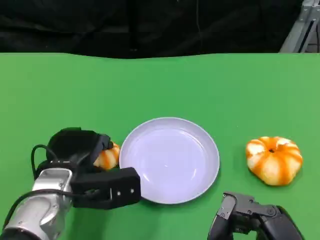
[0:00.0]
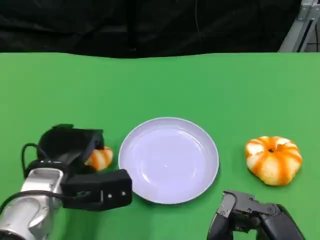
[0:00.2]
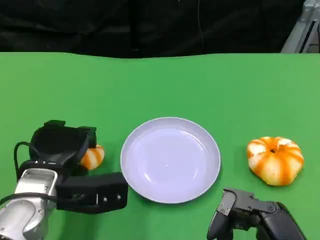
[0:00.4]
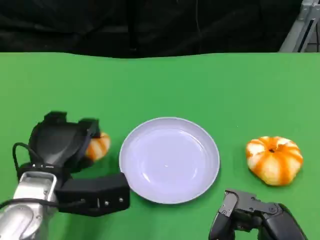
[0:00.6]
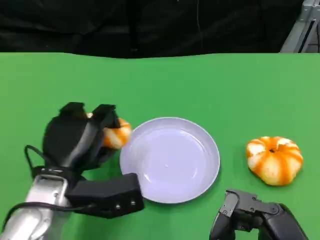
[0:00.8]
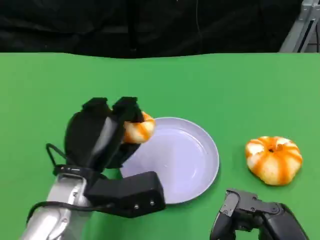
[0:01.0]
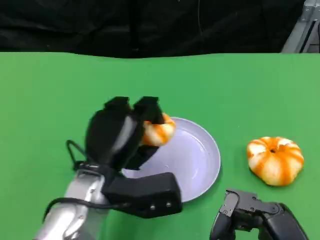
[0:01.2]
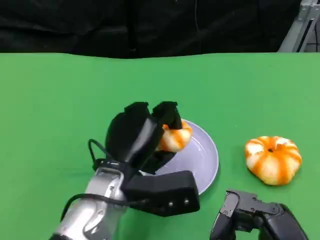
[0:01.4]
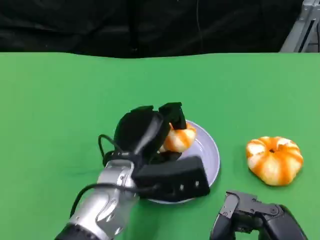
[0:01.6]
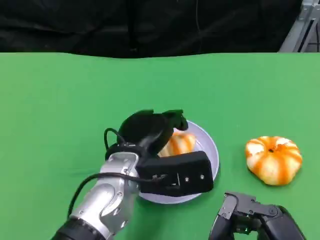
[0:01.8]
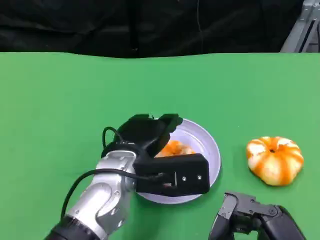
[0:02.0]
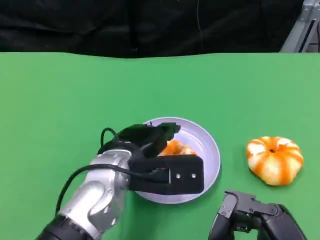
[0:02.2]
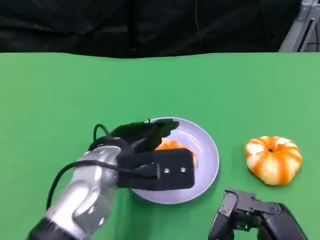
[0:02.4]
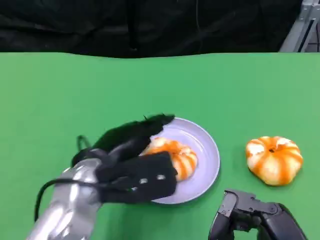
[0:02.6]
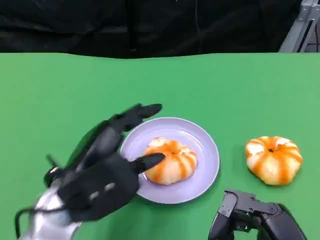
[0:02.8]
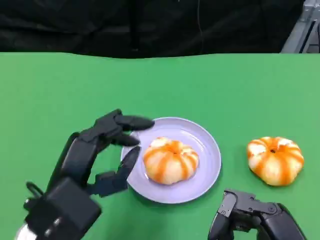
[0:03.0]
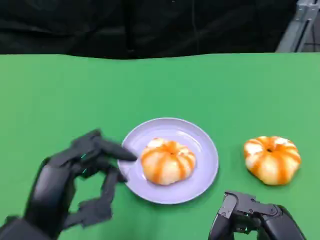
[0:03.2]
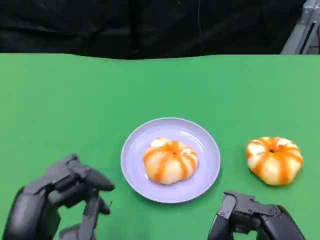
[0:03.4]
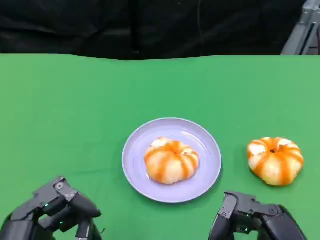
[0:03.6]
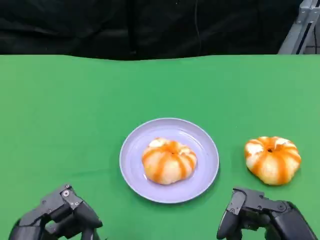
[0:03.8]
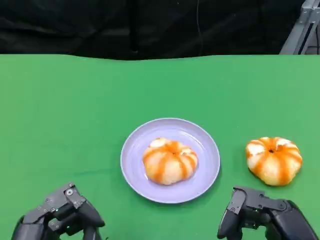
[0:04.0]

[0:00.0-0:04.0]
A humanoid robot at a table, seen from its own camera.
Task of the whole recording: Grasp the bread from the table and place it into the plate.
0:00.0 to 0:01.4: The left hand moves to the right, about 10 cm.
0:01.4 to 0:02.6: The left hand is displaced to the left by about 5 cm.
0:02.6 to 0:04.0: The left hand moves backward and to the left, about 15 cm.

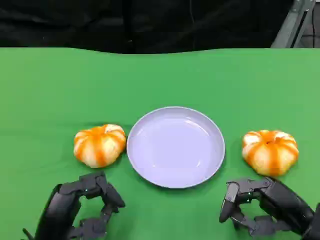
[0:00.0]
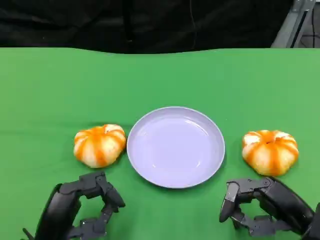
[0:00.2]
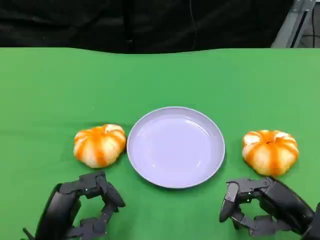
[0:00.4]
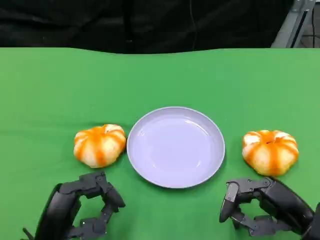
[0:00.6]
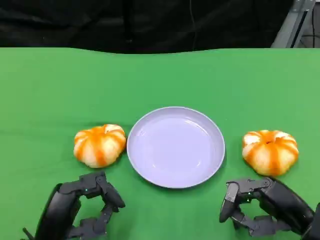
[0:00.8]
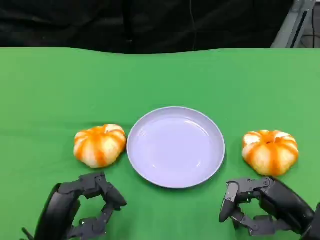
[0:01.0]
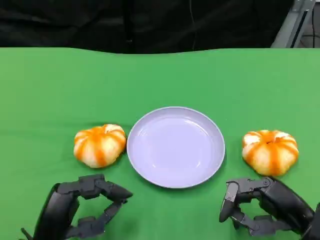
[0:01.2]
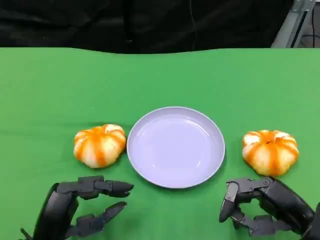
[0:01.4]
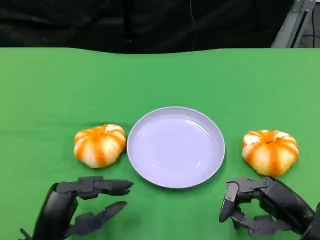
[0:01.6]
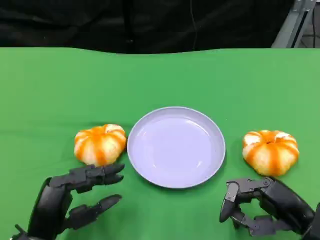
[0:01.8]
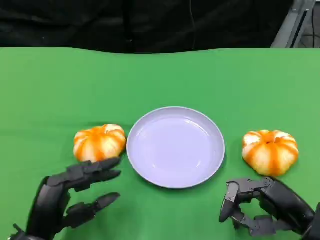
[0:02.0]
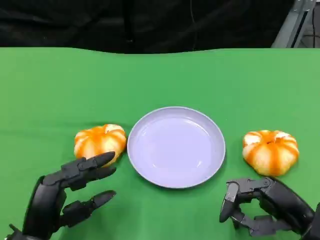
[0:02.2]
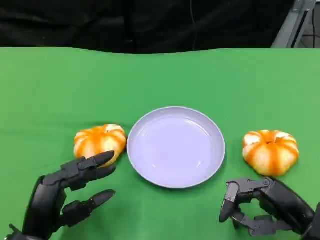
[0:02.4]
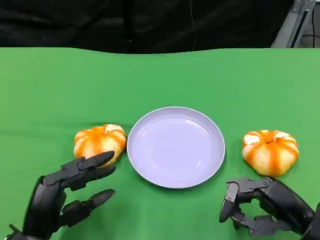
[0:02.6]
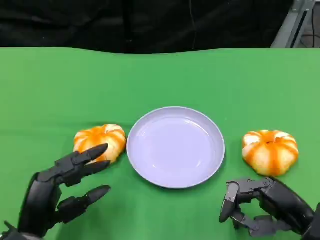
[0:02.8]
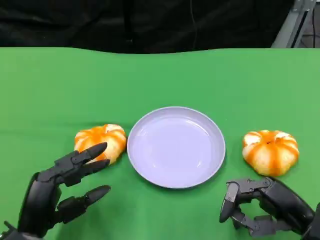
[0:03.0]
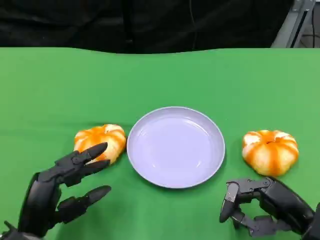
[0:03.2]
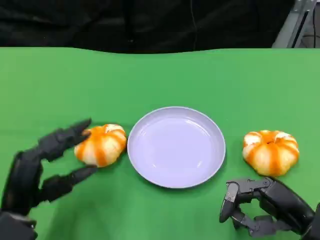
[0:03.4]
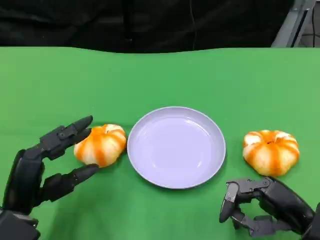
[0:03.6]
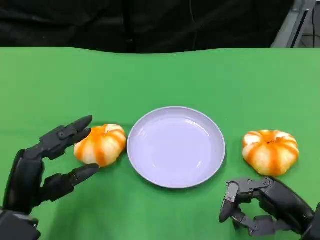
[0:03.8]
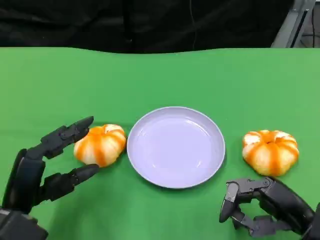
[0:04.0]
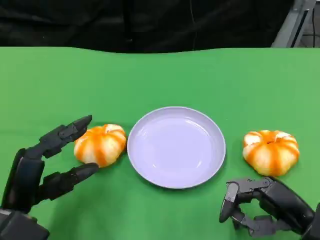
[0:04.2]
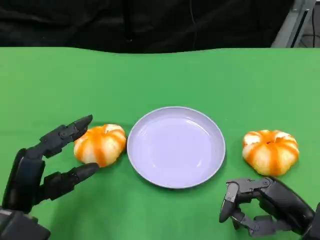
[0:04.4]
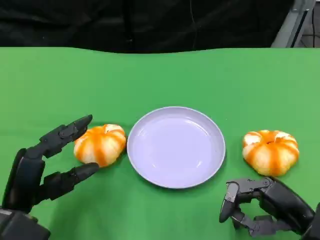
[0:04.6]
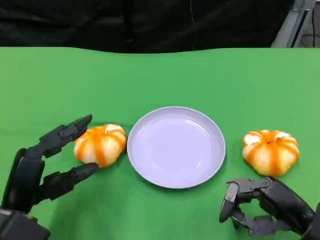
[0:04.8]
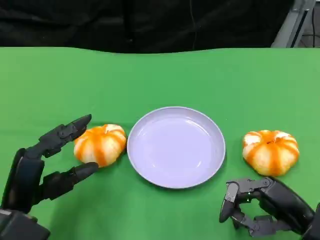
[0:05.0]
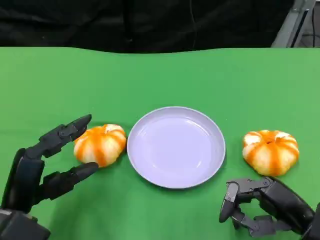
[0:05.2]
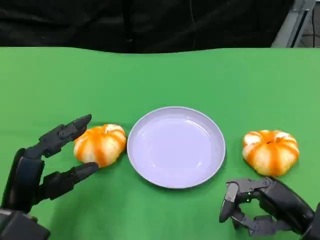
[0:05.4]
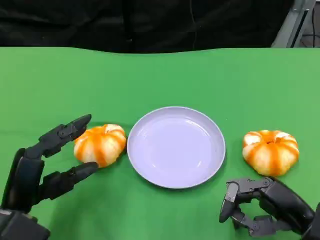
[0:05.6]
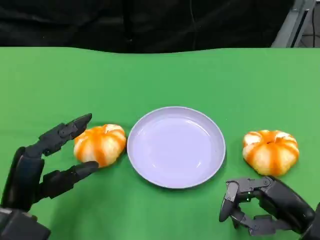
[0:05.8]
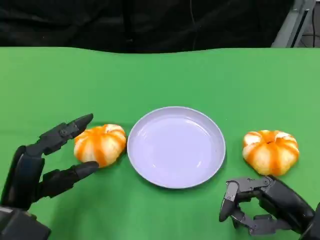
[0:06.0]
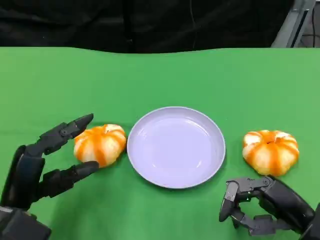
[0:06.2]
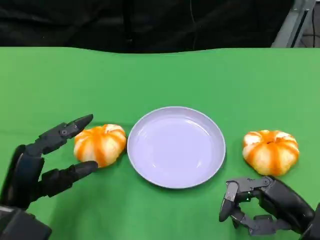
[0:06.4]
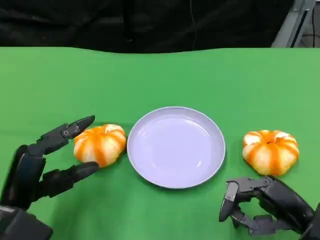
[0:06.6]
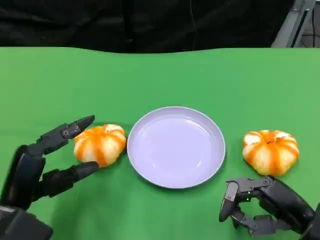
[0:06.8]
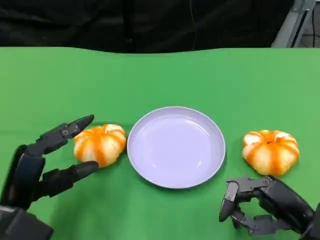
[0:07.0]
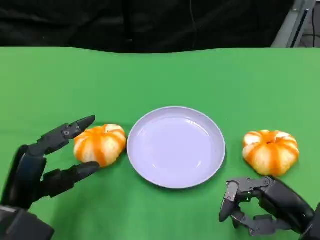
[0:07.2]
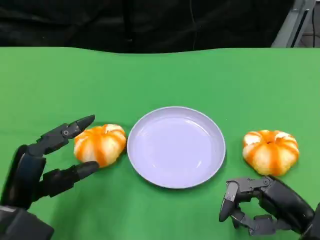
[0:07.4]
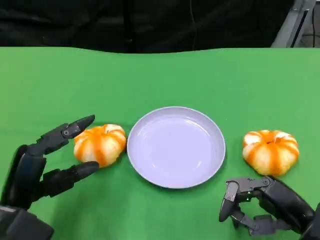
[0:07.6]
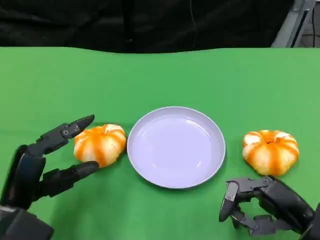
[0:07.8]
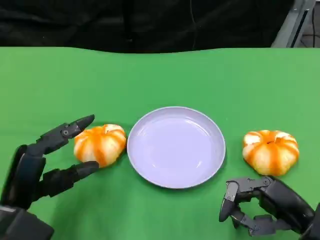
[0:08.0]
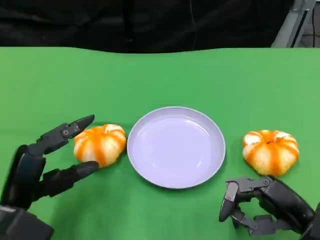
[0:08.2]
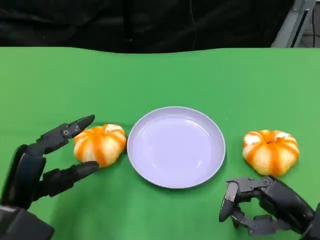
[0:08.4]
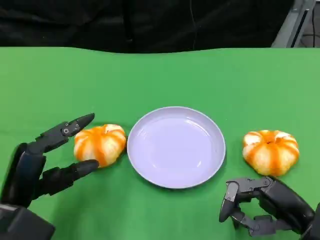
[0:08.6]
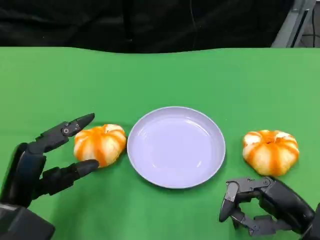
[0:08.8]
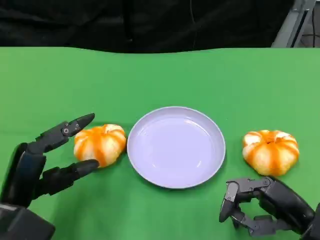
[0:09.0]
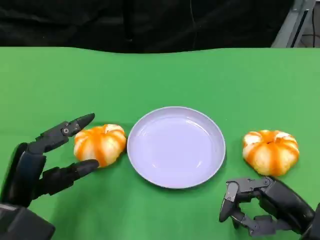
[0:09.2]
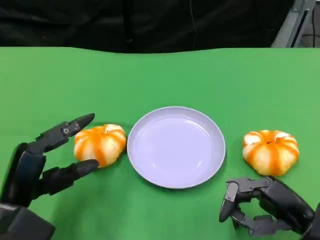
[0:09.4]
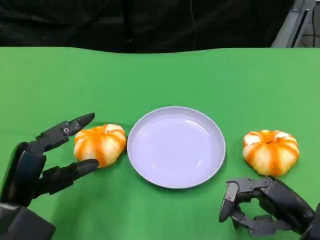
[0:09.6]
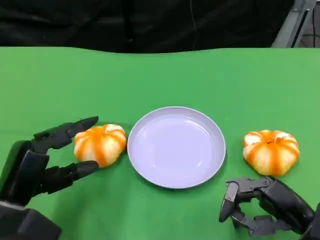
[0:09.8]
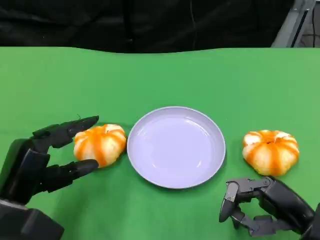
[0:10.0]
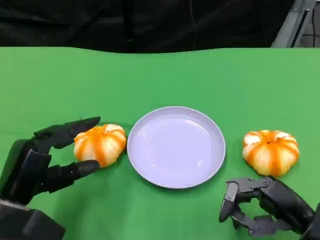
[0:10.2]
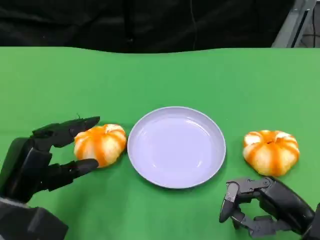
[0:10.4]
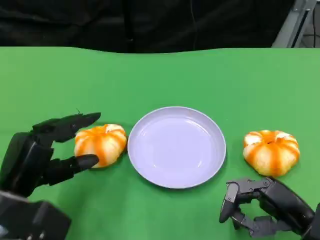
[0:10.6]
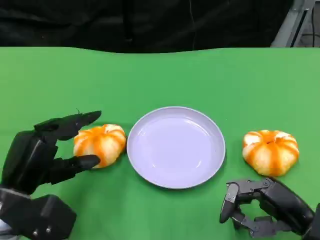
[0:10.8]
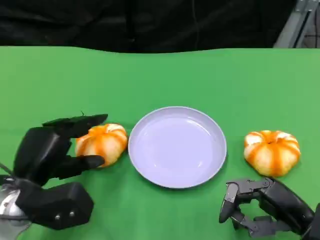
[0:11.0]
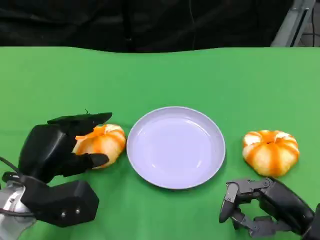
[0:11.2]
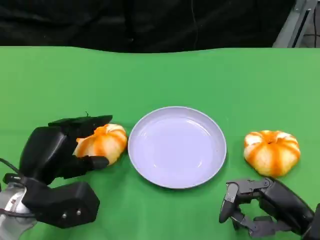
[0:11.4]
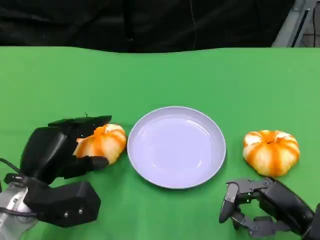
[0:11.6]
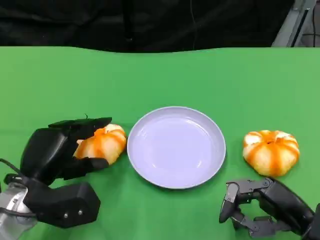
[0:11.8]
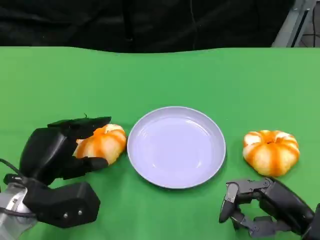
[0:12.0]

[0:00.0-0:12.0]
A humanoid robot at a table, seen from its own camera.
Task of the whole recording: Grasp the bread from the table and place it into the plate.
0:00.0 to 0:01.6: Both hands stay about where they are.
0:01.6 to 0:04.4: There are only small adjustments of the hands.
0:04.4 to 0:09.0: Neither hand changes place.
0:09.0 to 0:10.4: The hands move only a little.
0:10.4 to 0:12.0: The hands make only small movements.

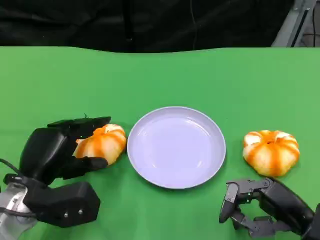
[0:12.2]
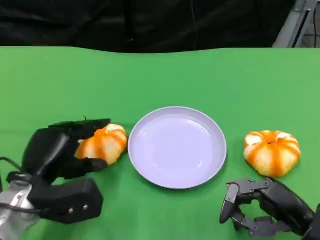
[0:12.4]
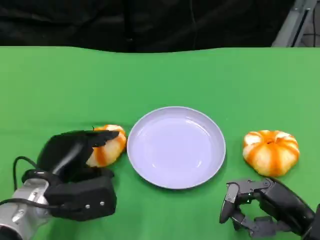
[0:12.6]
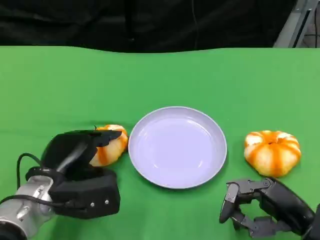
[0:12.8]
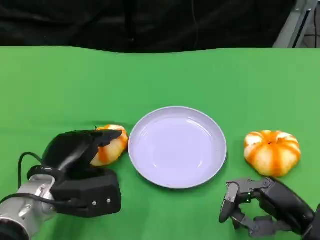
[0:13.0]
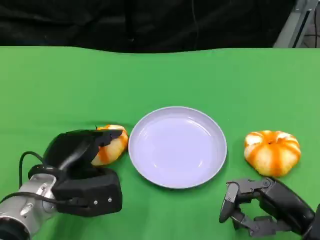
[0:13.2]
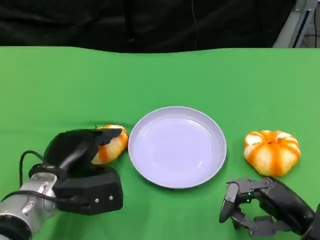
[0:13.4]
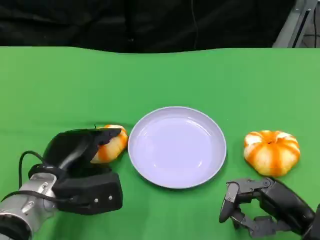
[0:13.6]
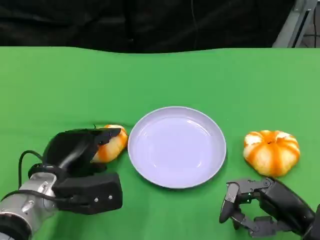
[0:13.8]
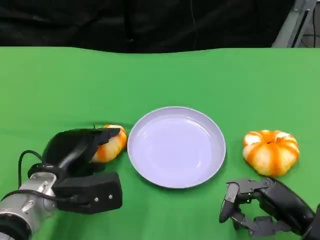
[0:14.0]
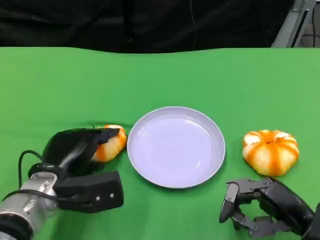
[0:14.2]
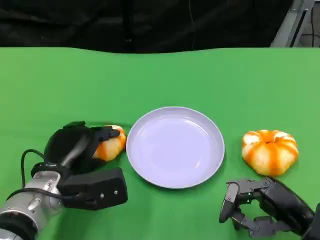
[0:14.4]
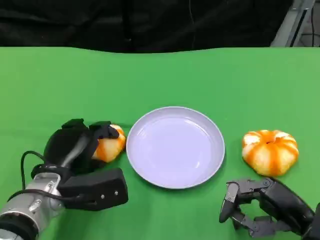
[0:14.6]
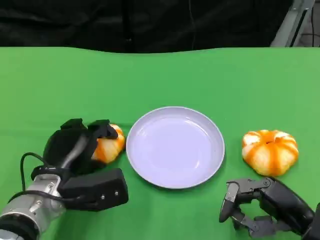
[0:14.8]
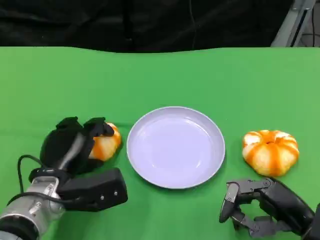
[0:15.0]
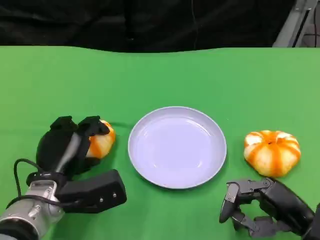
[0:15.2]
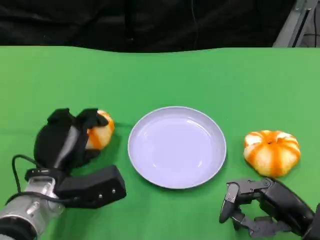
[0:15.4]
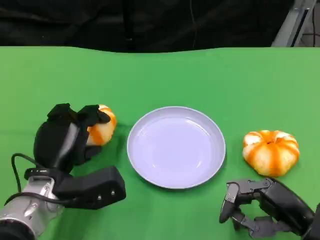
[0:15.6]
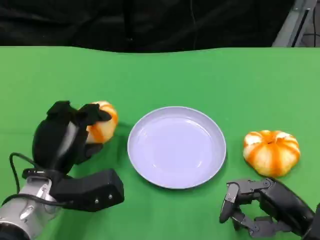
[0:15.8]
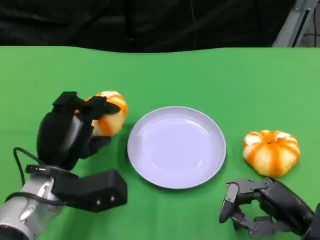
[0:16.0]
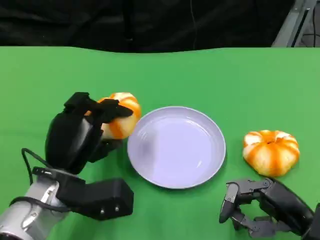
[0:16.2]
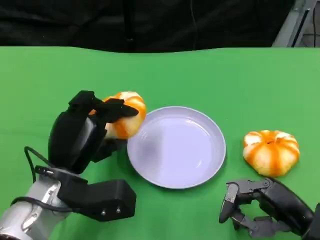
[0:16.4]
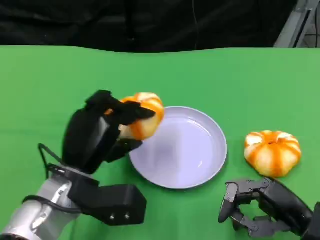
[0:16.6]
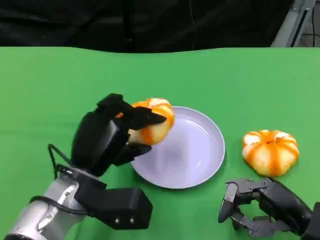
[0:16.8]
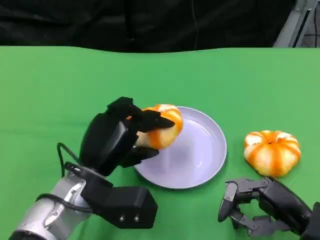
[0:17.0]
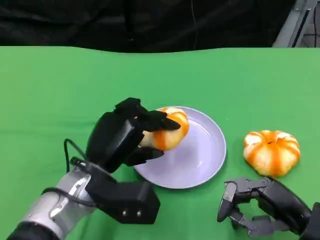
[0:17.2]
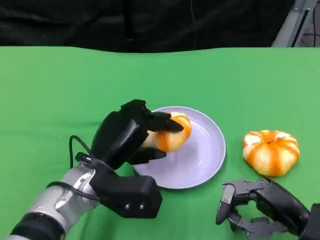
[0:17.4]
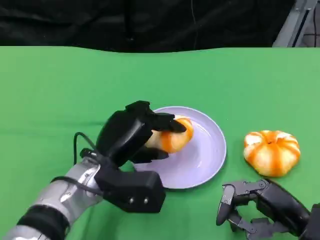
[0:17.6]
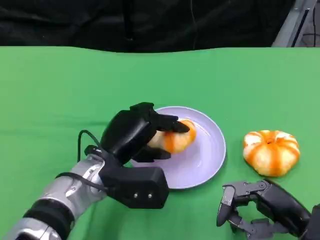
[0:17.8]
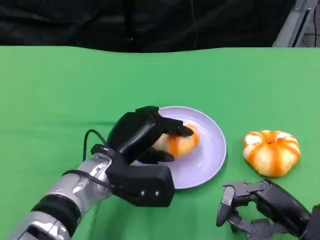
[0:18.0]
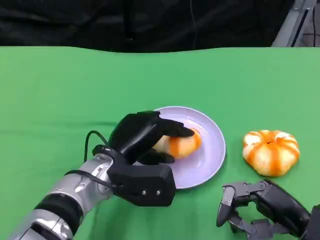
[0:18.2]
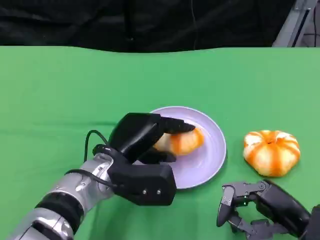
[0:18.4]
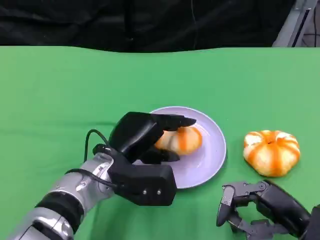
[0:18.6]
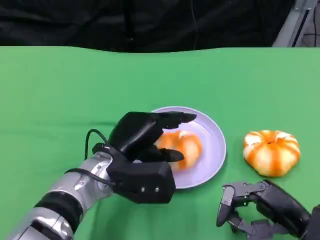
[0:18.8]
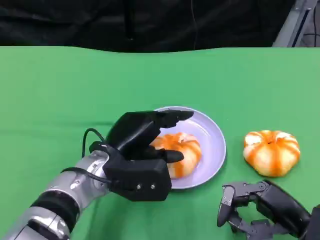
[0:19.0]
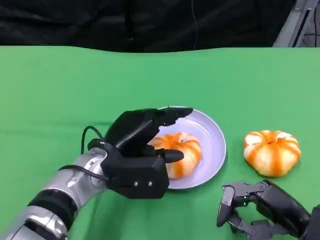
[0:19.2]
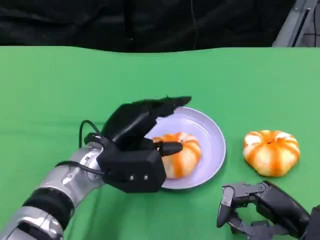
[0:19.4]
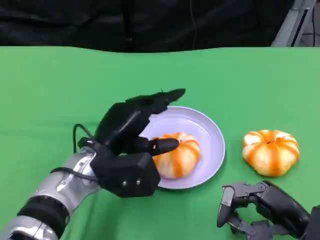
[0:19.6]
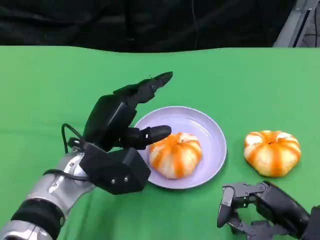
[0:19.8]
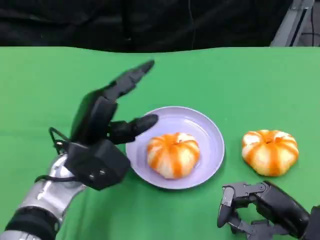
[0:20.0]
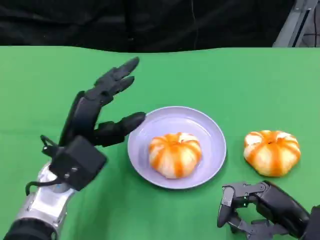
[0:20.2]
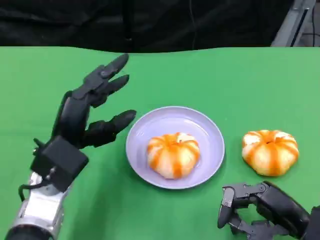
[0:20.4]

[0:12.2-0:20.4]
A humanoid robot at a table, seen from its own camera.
Task of the whole recording: Grasp the bread from the table and place it into the plate.
0:12.2 to 0:13.8: There are only small adjustments of the hands.
0:15.4 to 0:17.2: The left hand moves to the right, approximately 5 cm.
0:17.2 to 0:18.8: There are only small adjustments of the hands.
0:18.8 to 0:20.4: The left hand heads to the left, covering about 5 cm.
